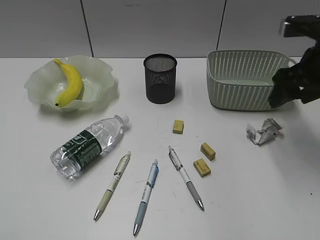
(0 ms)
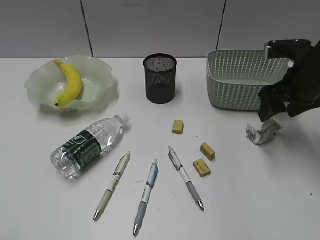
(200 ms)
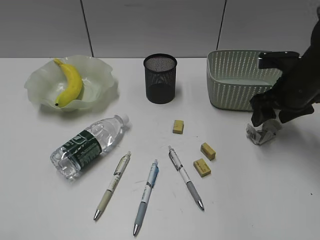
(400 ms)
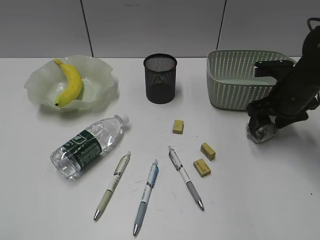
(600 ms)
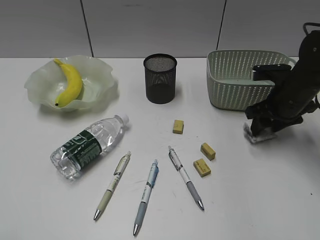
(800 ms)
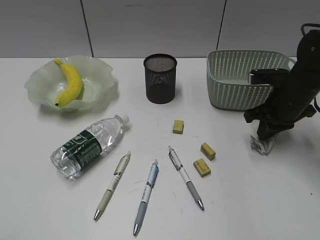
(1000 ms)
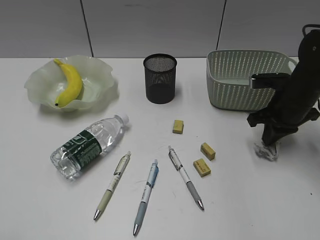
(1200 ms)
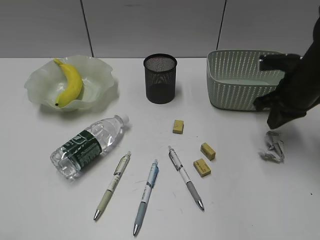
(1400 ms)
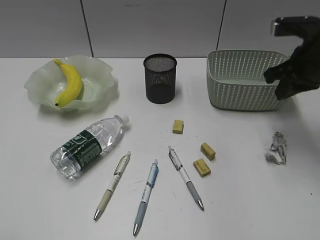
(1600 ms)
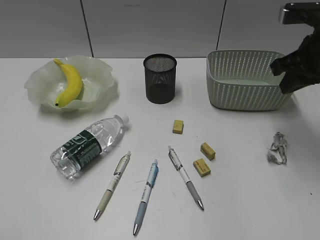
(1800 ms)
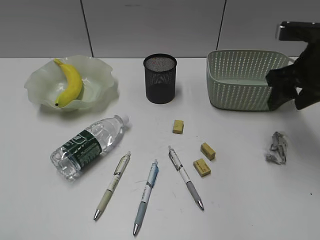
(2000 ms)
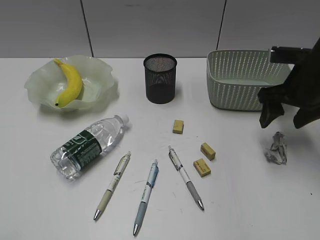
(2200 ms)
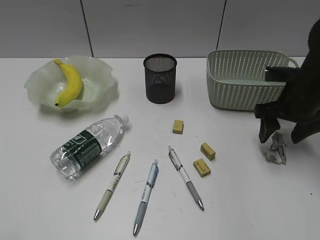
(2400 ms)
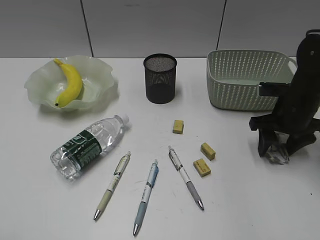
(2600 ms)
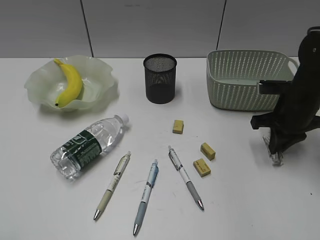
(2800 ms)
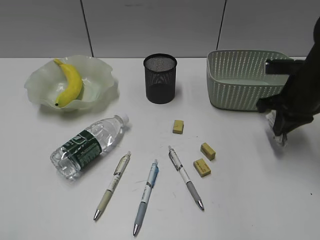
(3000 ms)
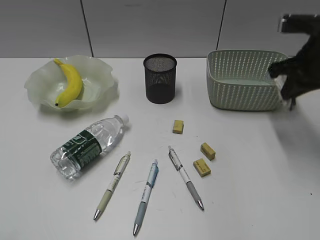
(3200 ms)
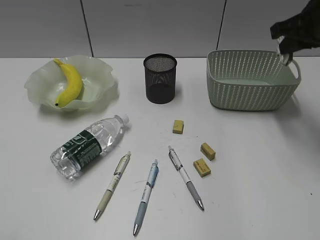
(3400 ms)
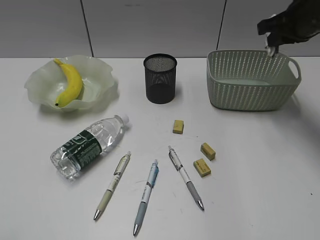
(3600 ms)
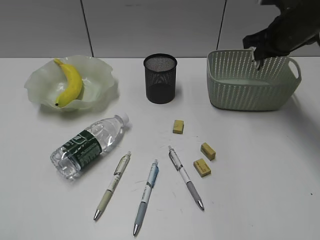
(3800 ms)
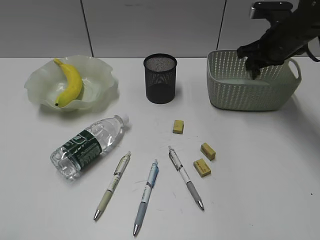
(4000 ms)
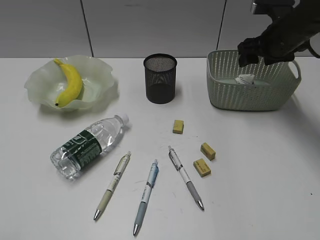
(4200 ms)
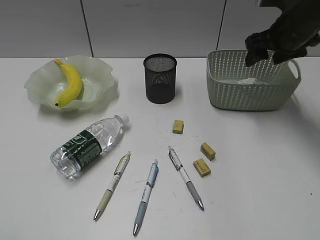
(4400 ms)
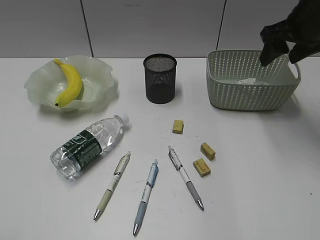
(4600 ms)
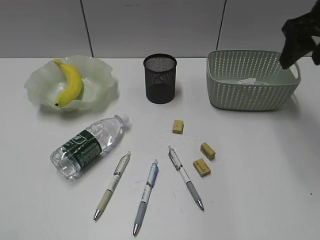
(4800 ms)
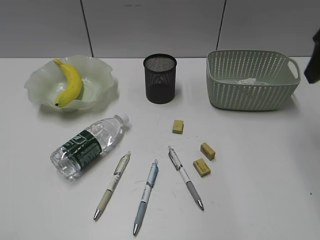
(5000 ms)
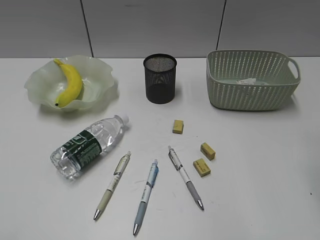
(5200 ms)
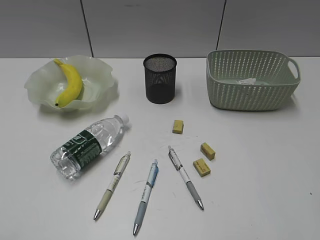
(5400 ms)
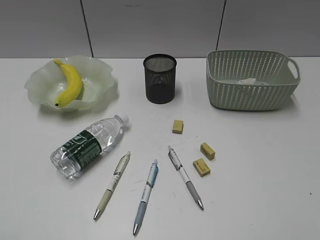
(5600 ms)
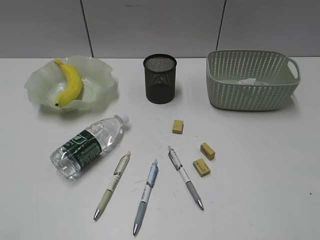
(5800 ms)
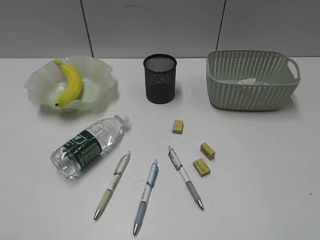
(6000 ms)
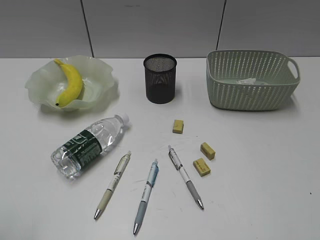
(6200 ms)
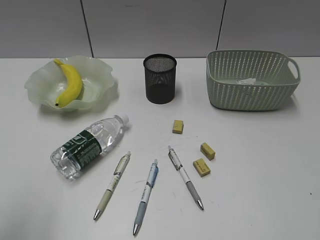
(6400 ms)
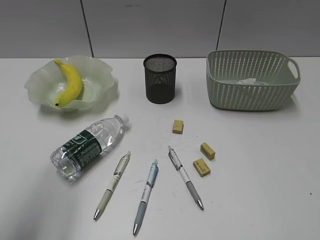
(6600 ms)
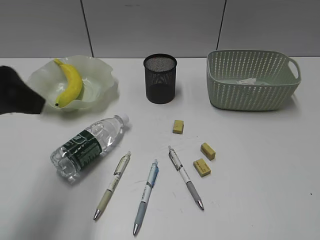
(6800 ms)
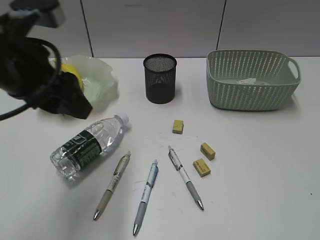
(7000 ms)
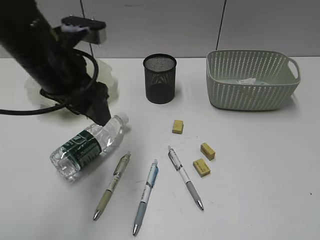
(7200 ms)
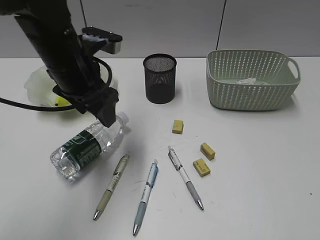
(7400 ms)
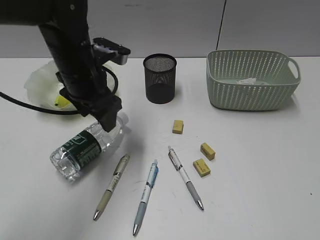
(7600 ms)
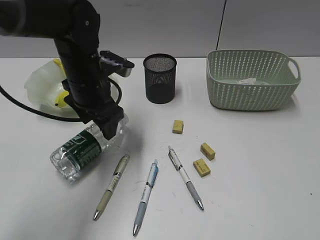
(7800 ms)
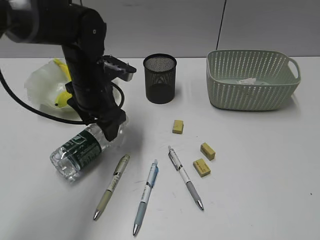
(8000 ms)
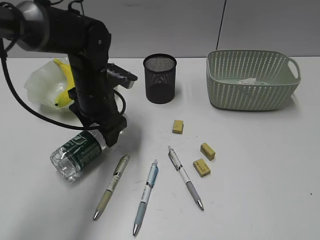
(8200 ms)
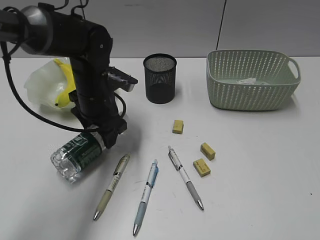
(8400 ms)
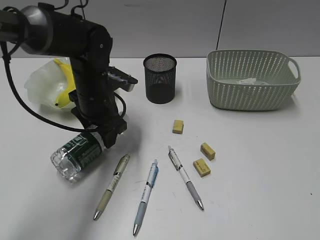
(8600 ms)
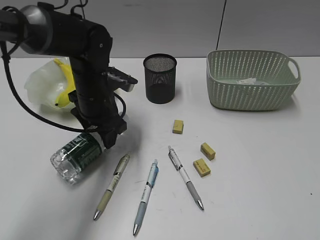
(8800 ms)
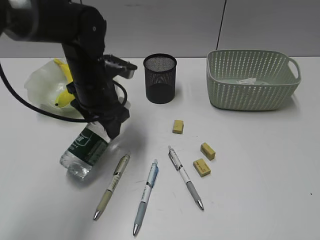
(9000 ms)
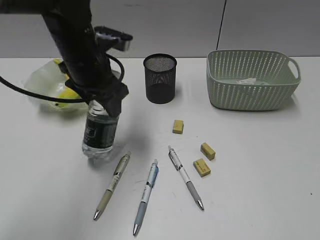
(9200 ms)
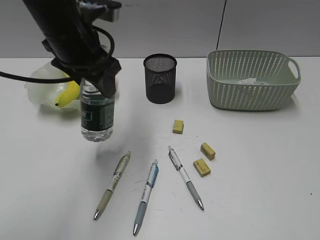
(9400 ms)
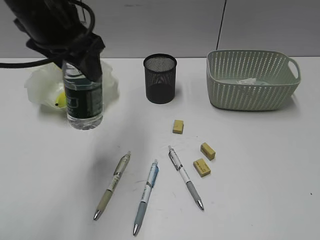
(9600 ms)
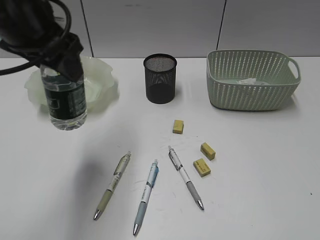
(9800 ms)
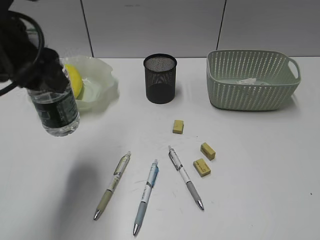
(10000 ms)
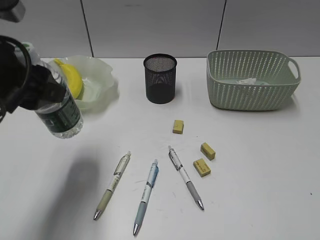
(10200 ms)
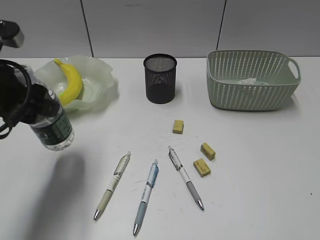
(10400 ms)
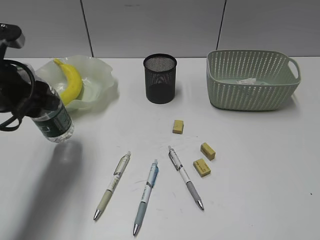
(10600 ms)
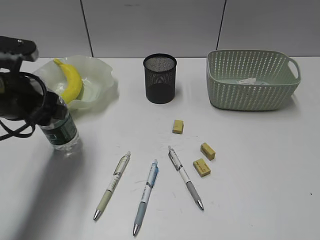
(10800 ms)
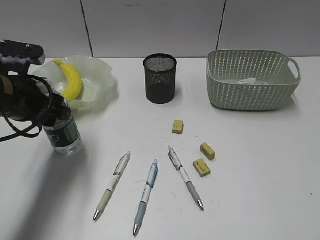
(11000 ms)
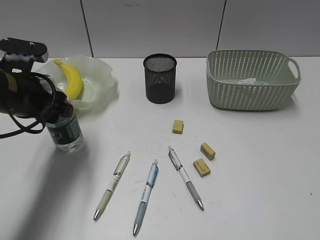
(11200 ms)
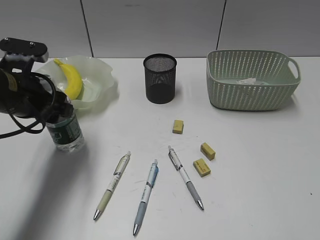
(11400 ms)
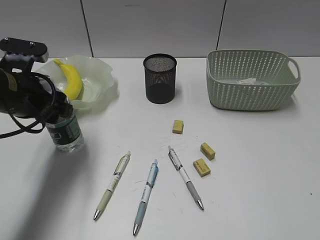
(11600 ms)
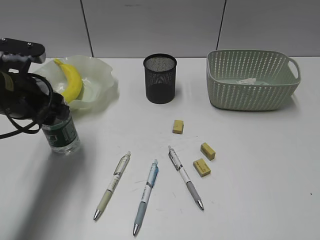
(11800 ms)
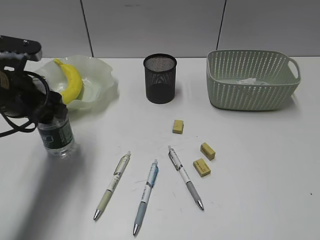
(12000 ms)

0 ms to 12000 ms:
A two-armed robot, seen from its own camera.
Step, 1200 ms to 4200 ms: Place the waste paper in the basket with right gripper.
Step, 4400 ms to 8600 ms: Grasp the bottle with left gripper.
0 ms to 1600 ms: The right gripper reaches some 10 cm downward, then returns, and closes its fingers.
1600 ms to 3000 ms: The right gripper heads downward, covering about 5 cm, and opens, then closes again.
3000 ms to 4400 ms: The right gripper heads forward and upward, covering about 10 cm, and opens its fingers.
4400 ms to 6000 ms: The right gripper is displaced backward by approximately 40 cm.
6000 ms to 7600 ms: The left gripper shifts roughly 40 cm forward and to the right, and opens up.
7600 ms to 9000 ms: The left gripper shifts by some 5 cm.
9000 ms to 10400 ms: The left gripper moves backward, to the left and upward, some 20 cm.
10400 ms to 12000 ms: The left gripper ends up some 5 cm from where it was.

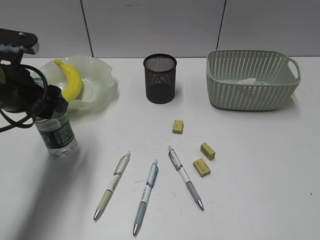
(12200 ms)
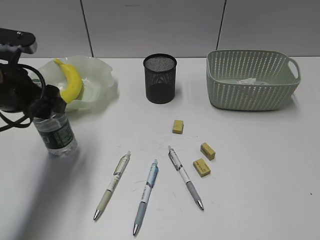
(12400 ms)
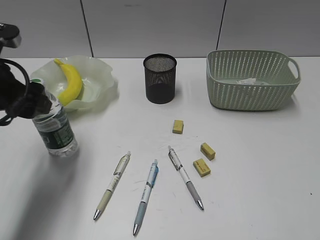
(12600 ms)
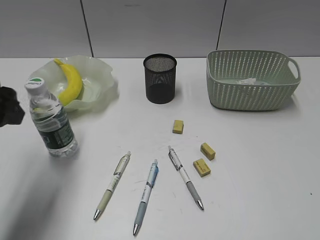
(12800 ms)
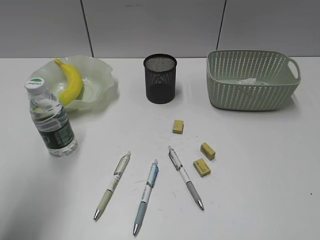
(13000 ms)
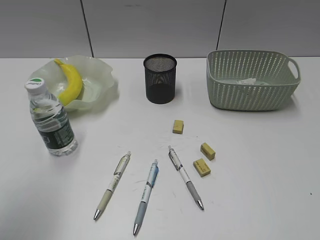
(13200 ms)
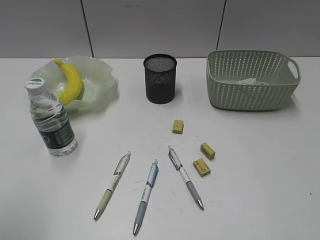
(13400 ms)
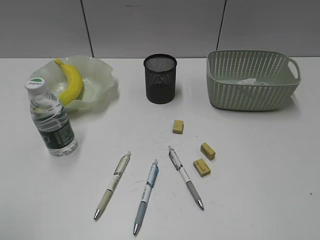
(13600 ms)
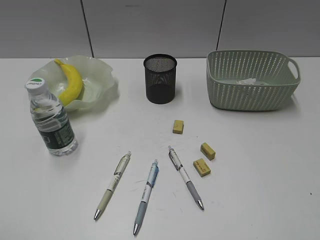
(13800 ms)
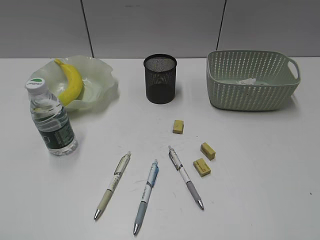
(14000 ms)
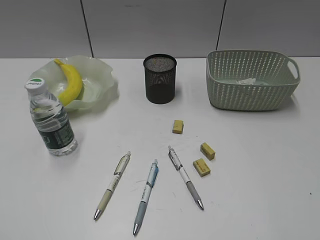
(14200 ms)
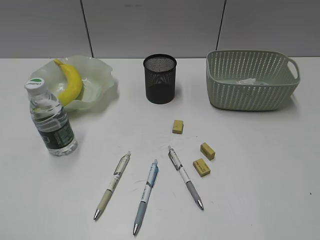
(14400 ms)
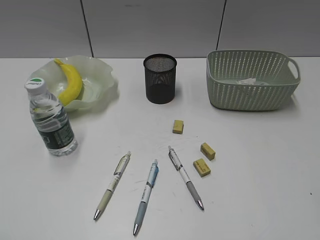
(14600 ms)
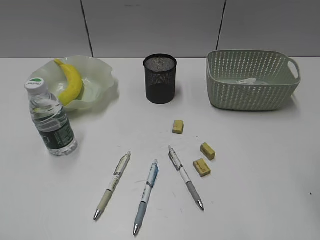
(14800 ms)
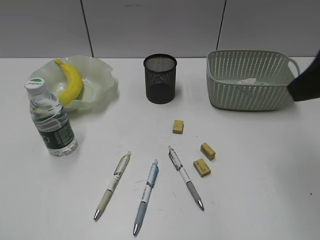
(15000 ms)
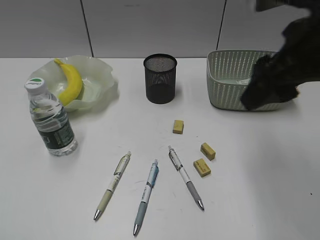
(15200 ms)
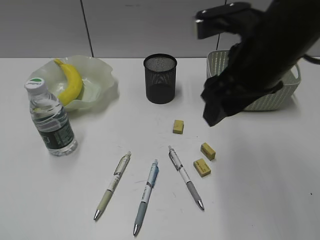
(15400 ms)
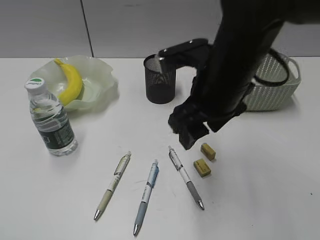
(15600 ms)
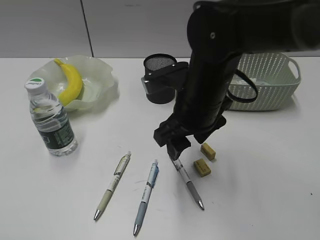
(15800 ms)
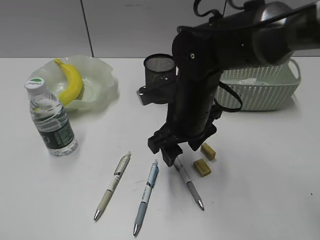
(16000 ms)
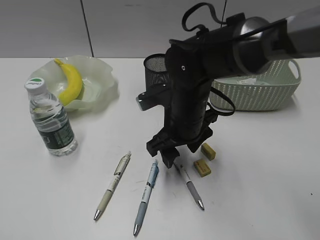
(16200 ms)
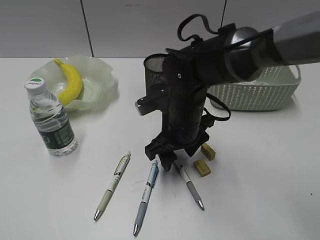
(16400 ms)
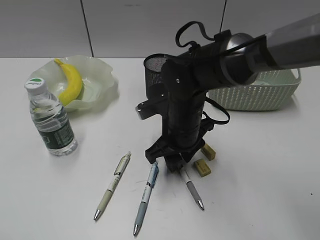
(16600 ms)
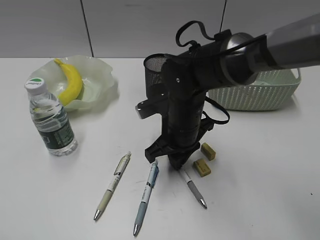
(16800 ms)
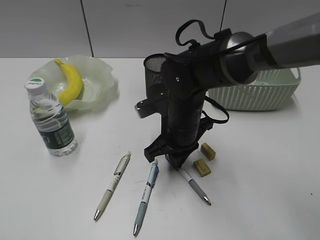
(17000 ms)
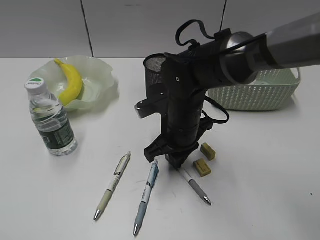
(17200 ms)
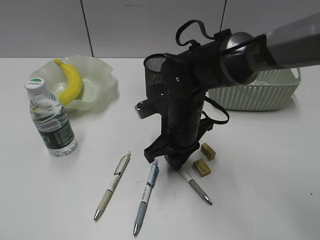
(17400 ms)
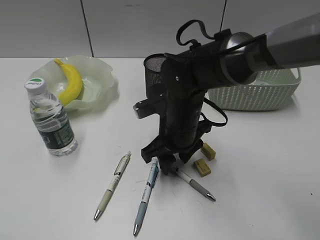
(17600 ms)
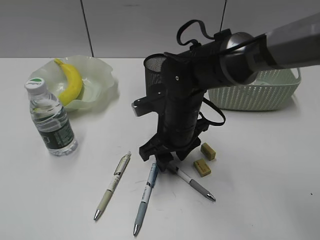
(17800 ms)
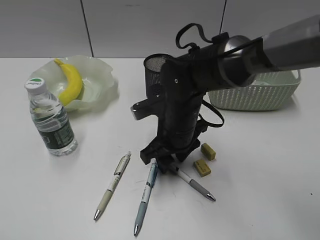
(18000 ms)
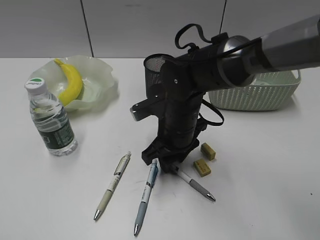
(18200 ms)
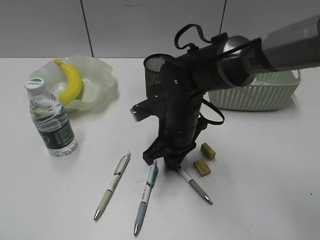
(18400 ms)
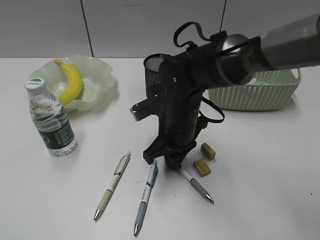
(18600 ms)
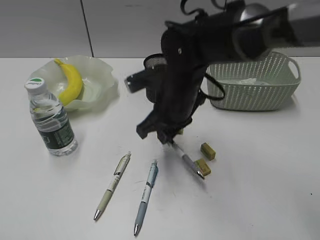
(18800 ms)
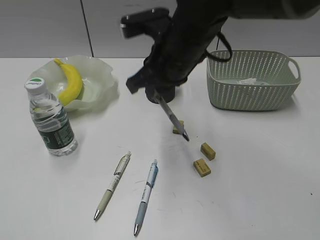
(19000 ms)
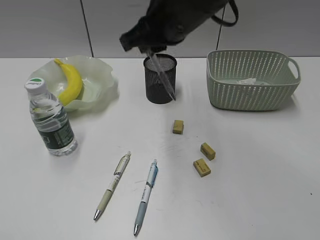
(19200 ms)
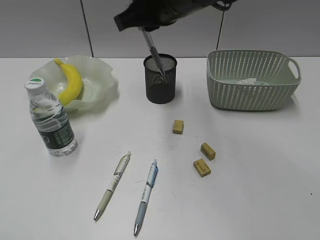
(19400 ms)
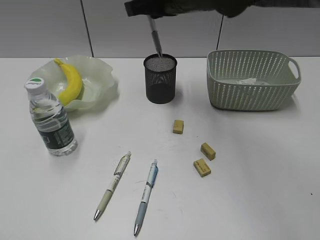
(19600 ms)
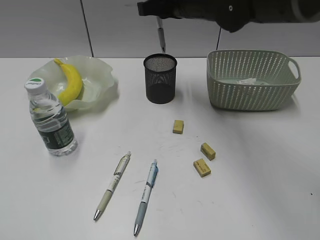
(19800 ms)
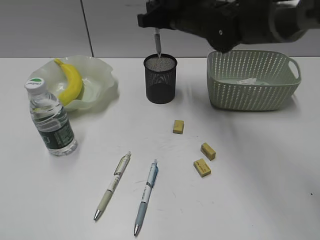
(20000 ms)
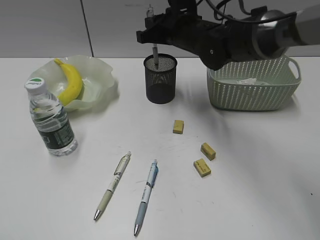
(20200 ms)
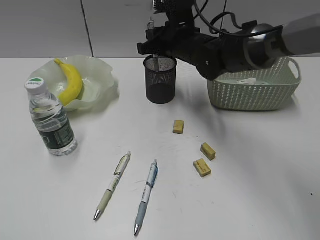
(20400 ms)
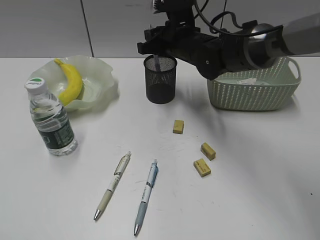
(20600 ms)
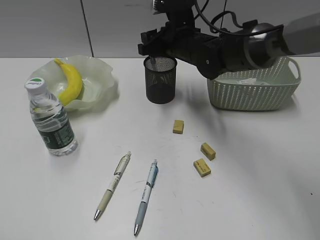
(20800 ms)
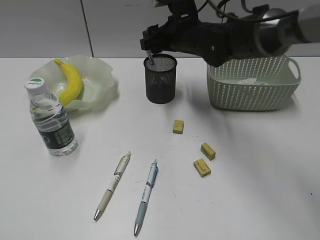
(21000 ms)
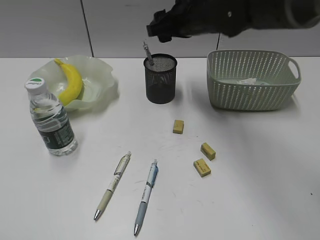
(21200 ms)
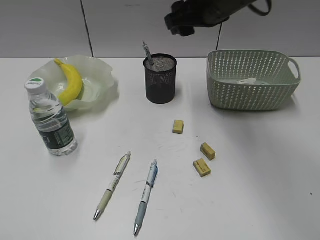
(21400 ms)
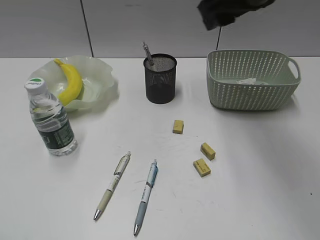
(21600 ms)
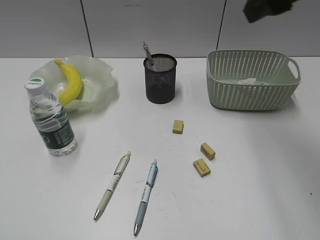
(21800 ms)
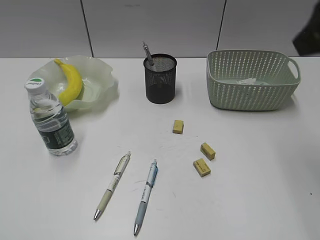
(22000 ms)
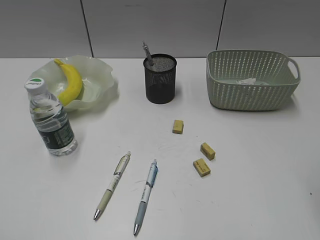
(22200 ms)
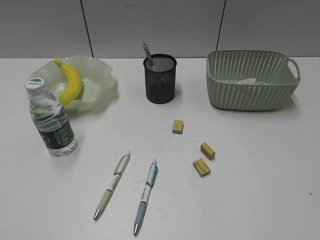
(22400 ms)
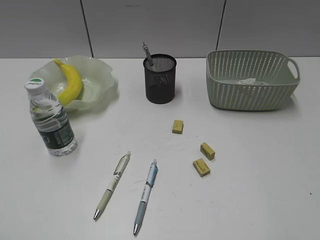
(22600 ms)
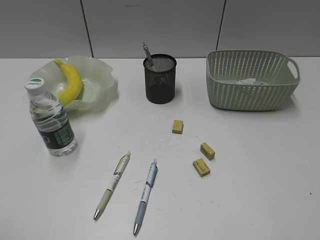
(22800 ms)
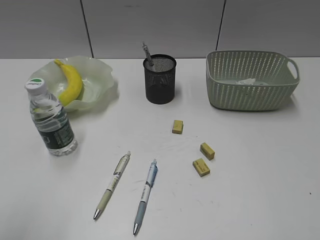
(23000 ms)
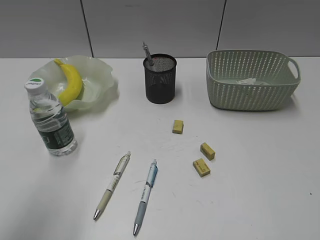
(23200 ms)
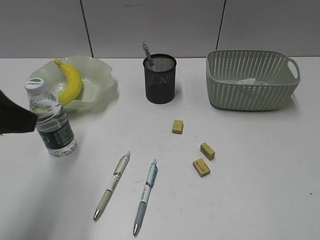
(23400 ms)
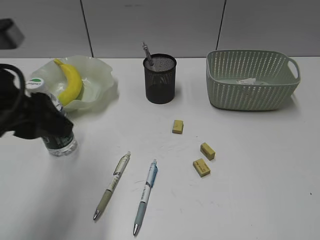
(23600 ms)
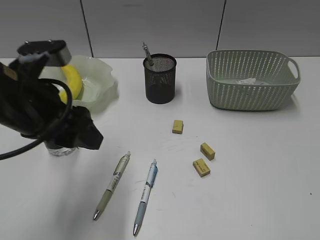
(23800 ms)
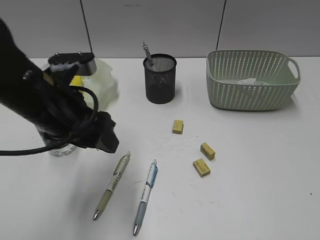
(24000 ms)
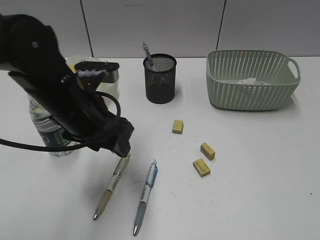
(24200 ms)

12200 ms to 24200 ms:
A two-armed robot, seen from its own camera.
Step, 12800 ms to 18400 ms: Grasp the gray pen with right gripper.
Step, 18600 ms to 21000 ms: Place the gray pen in pen holder with right gripper.
12200 ms to 13800 ms: The left gripper is displaced backward by about 25 cm.
13800 ms to 15200 ms: The right gripper shifts approximately 30 cm forward and to the left.
15200 ms to 16600 ms: The right gripper shifts roughly 25 cm downward and to the left.
16600 ms to 18200 ms: The right gripper closes, then reopens.
18200 ms to 19800 ms: The right gripper moves upward and forward, some 20 cm, and closes up.
19800 ms to 21200 ms: The right gripper moves approximately 10 cm downward and comes back, and opens its fingers.
21200 ms to 22600 ms: The right gripper travels backward and to the right by some 40 cm.
22600 ms to 24200 ms: The right gripper ends up roughly 5 cm from where it was, while the left gripper shifts roughly 35 cm forward and to the right.
